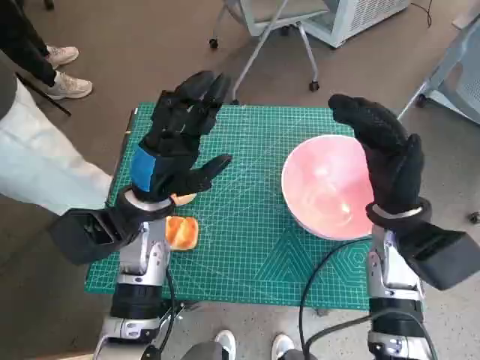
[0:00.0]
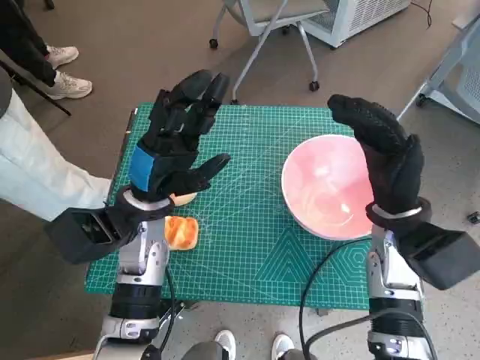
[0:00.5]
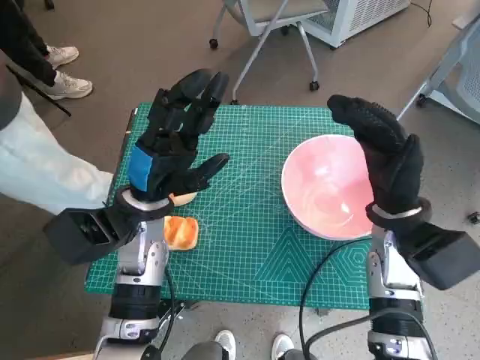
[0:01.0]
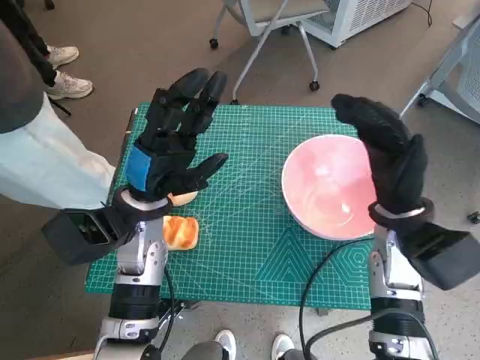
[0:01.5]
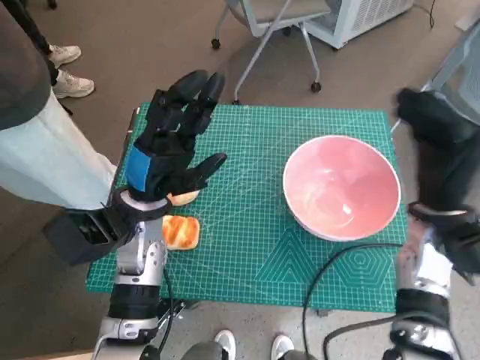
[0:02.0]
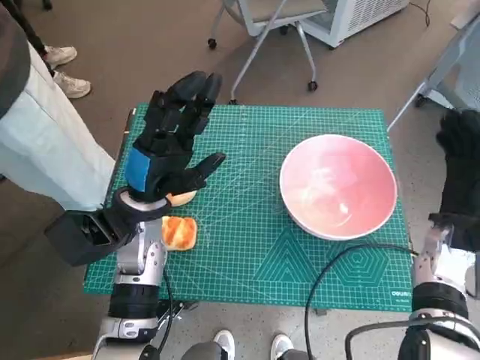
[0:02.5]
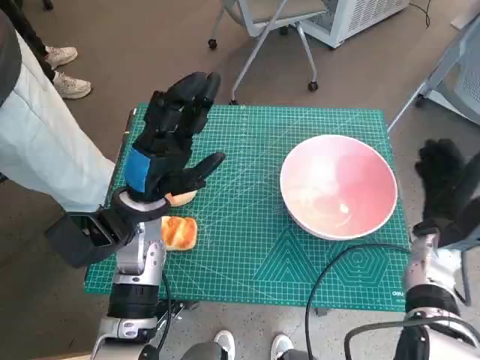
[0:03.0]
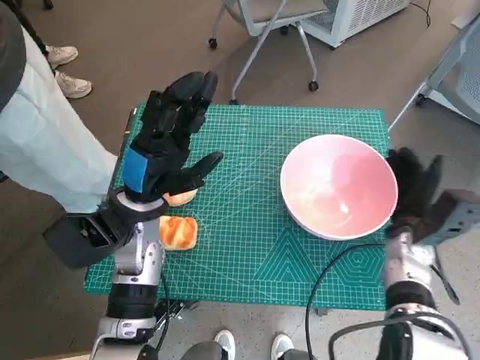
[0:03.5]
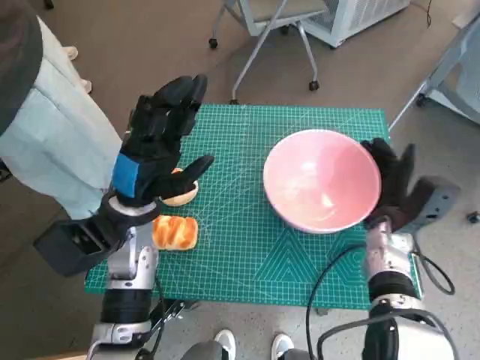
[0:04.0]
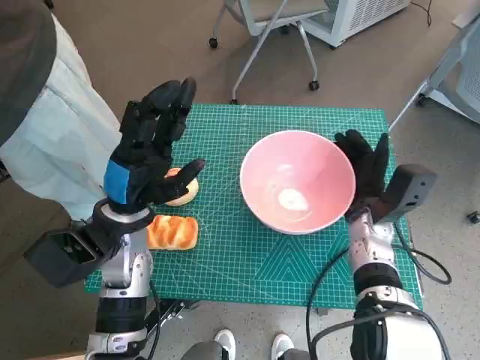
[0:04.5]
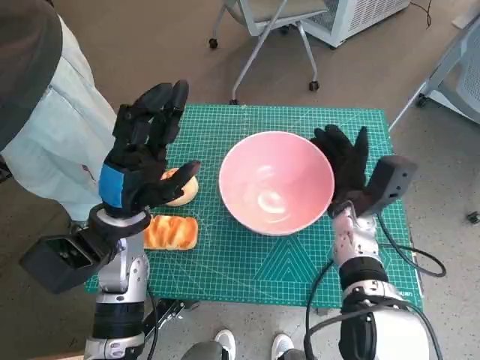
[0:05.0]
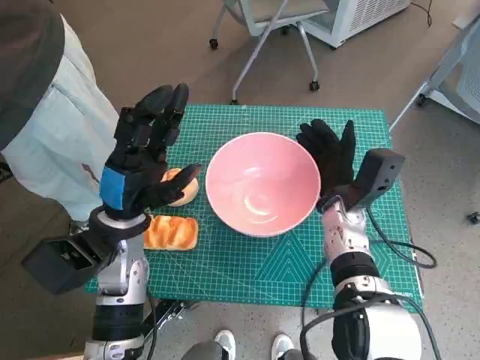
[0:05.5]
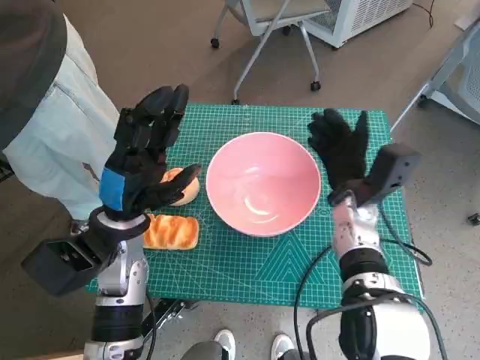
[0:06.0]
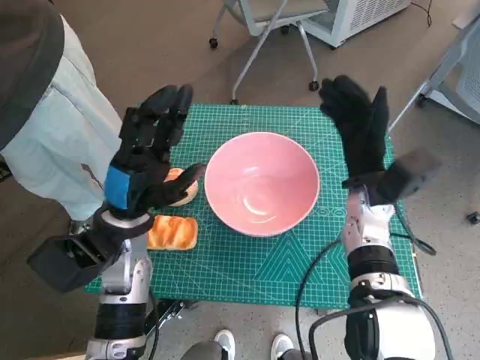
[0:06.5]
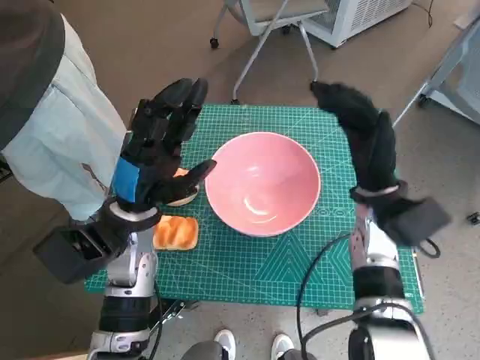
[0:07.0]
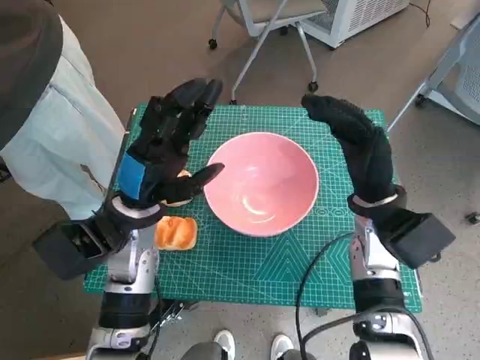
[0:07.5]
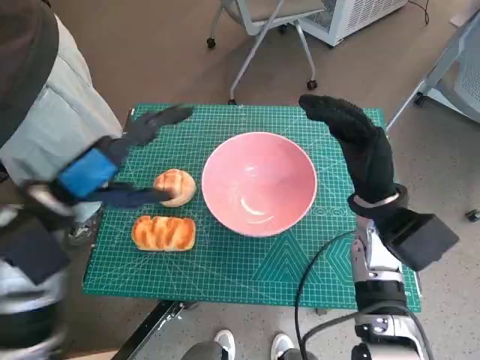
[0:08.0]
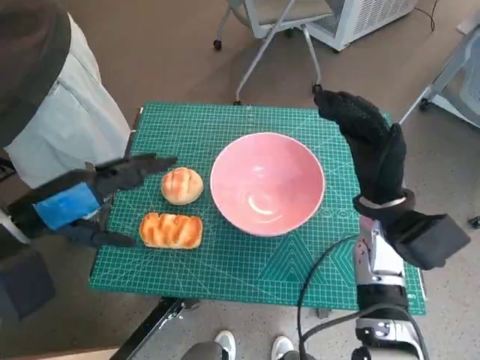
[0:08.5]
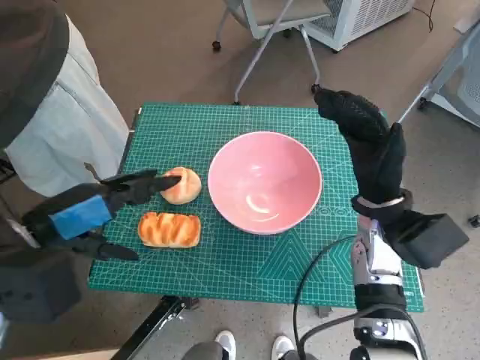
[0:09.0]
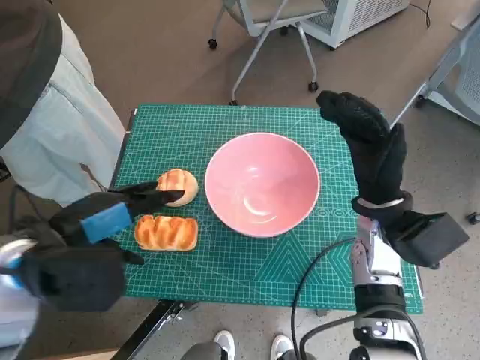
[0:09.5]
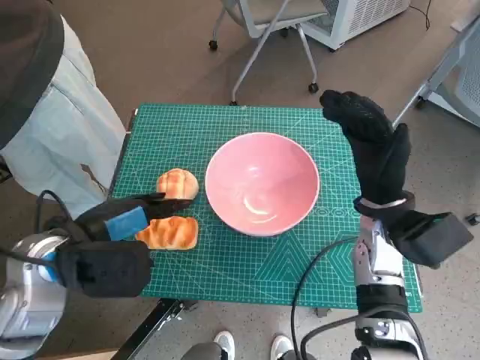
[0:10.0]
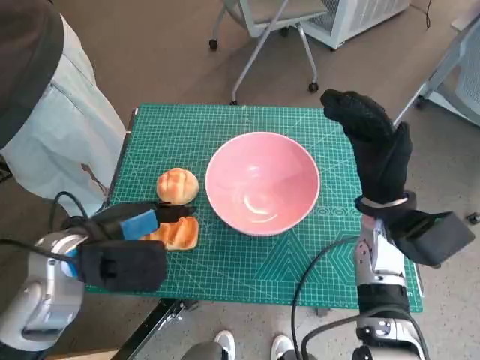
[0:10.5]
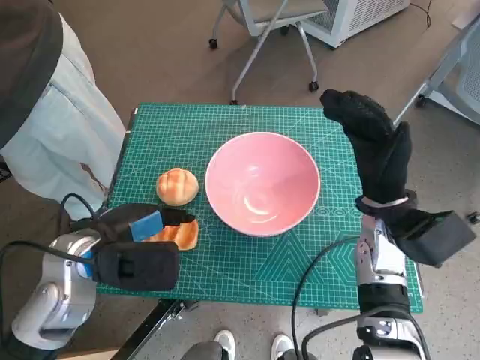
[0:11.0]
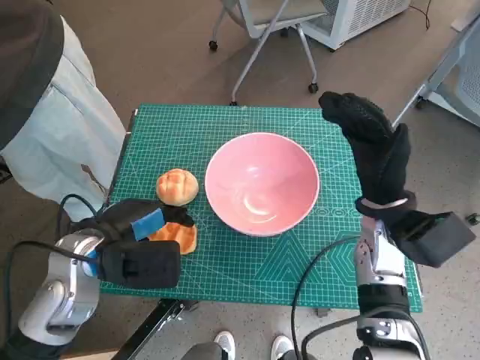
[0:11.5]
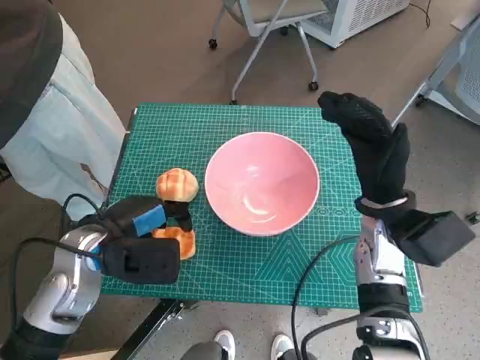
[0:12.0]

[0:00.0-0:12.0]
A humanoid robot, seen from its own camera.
Task of the whole recording: Push the bowl into the center of the table and put the bread into the bowl.
Step, 0:00.0 to 0:07.0: Move the pink bowl to the center of table with right hand.
0:02.0 to 0:04.0: The right hand goes some 10 cm downward.
0:04.0 to 0:06.0: The right hand travels to the left by about 5 cm.
0:06.0 to 0:08.0: The left hand is displaced upward and to the left by roughly 10 cm. The right hand is displaced upward by some 5 cm.
0:10.0 to 0:12.0: The left hand moves some 5 cm.

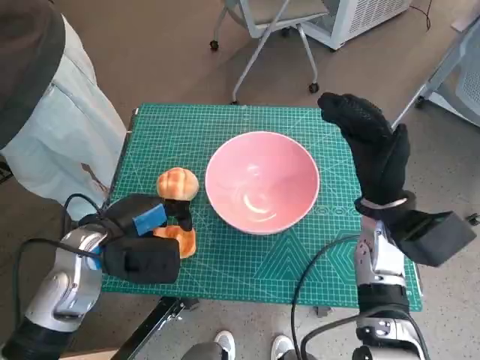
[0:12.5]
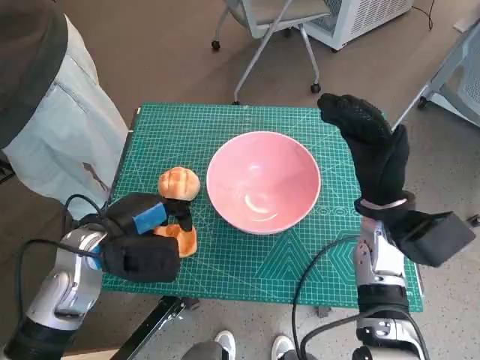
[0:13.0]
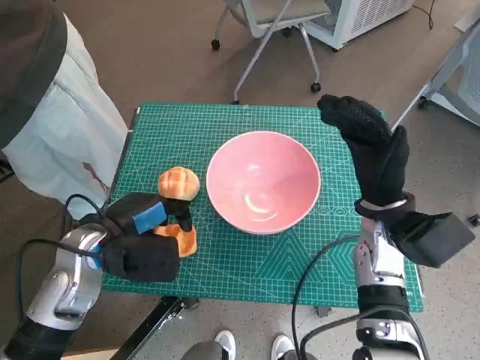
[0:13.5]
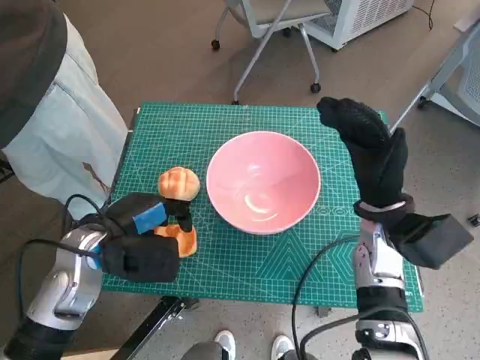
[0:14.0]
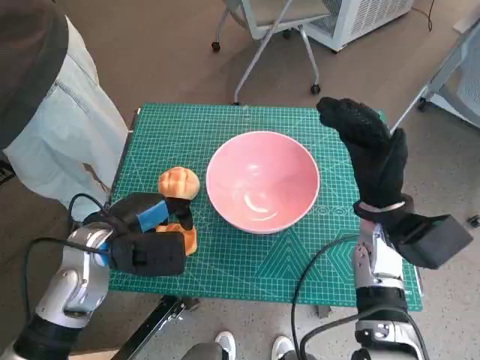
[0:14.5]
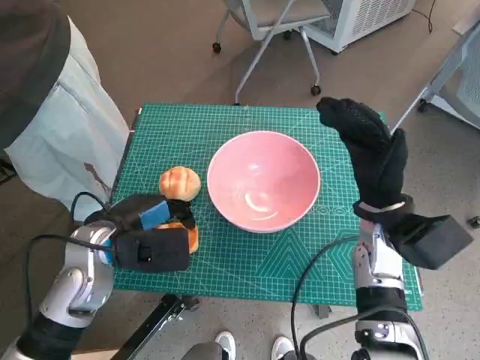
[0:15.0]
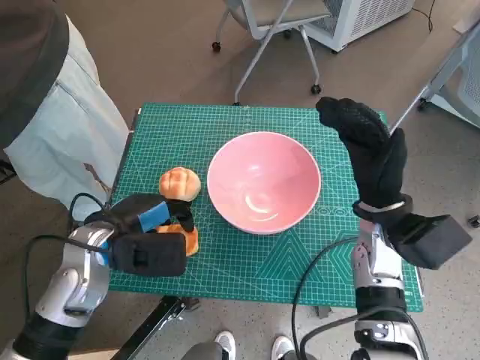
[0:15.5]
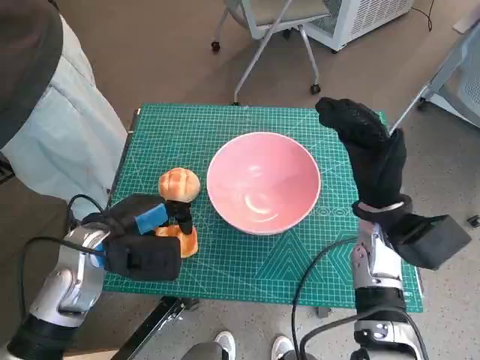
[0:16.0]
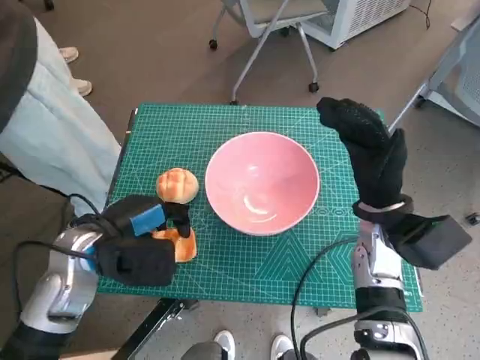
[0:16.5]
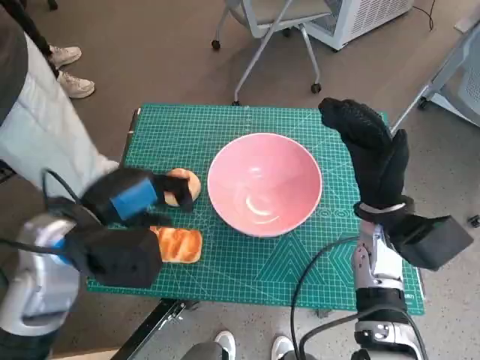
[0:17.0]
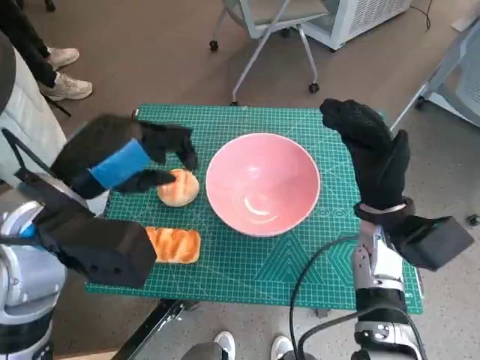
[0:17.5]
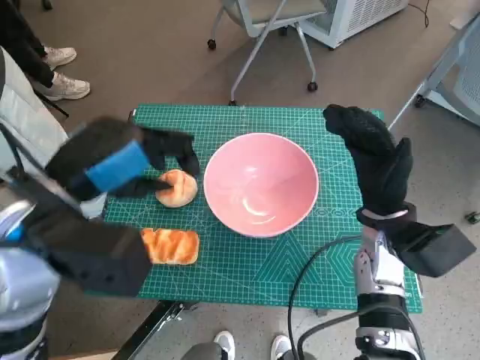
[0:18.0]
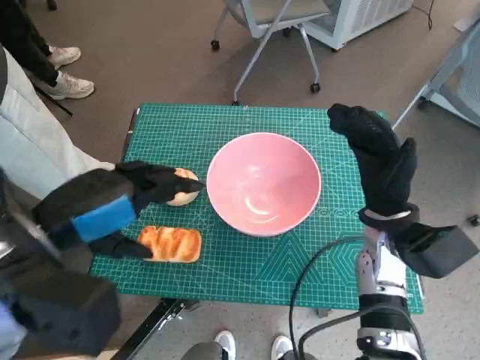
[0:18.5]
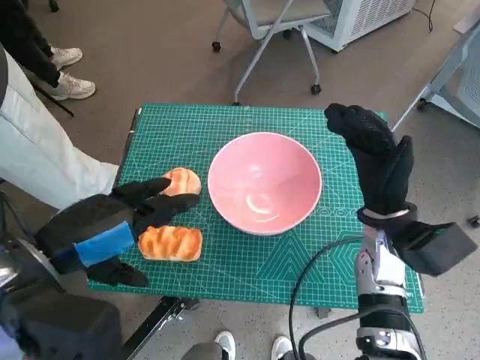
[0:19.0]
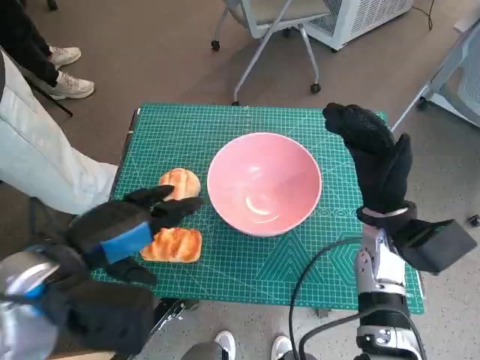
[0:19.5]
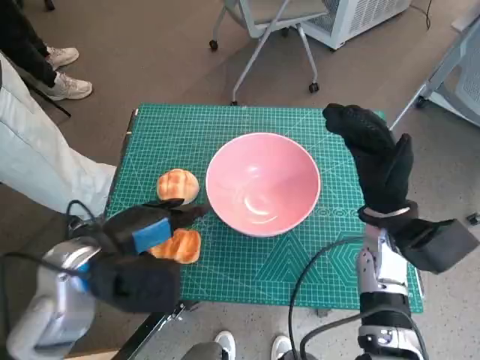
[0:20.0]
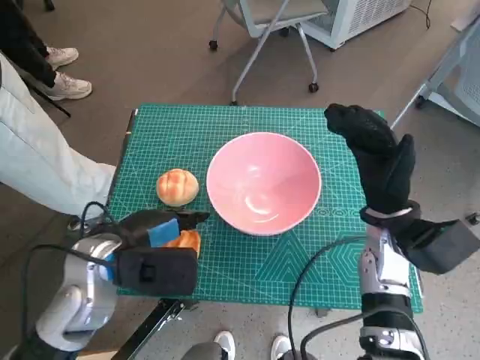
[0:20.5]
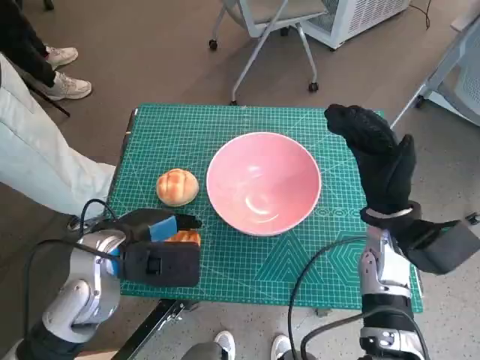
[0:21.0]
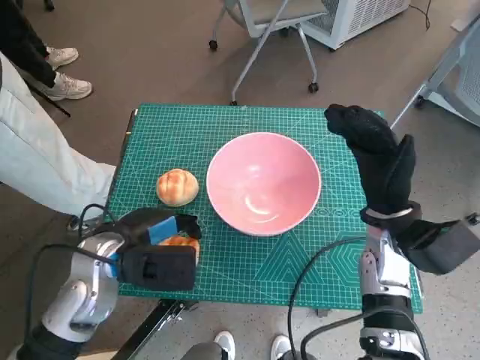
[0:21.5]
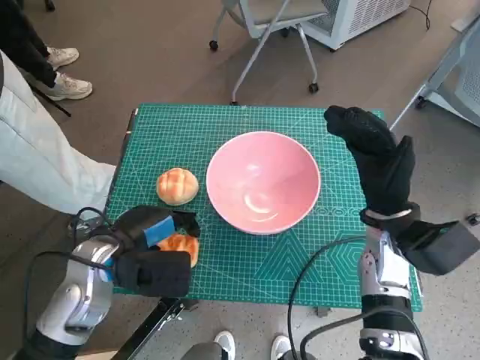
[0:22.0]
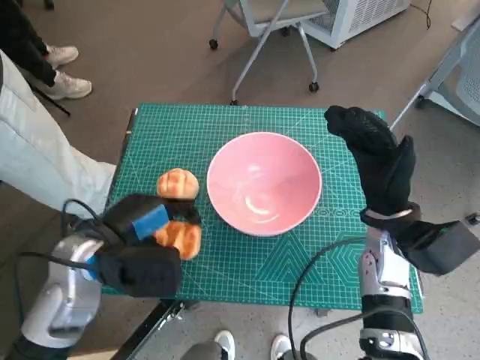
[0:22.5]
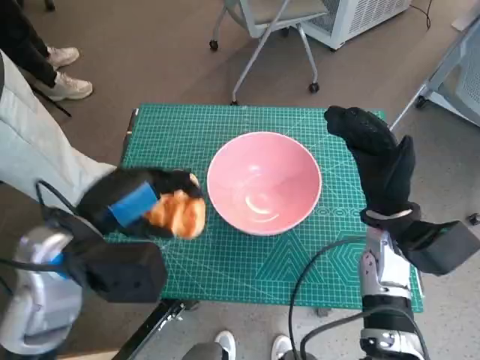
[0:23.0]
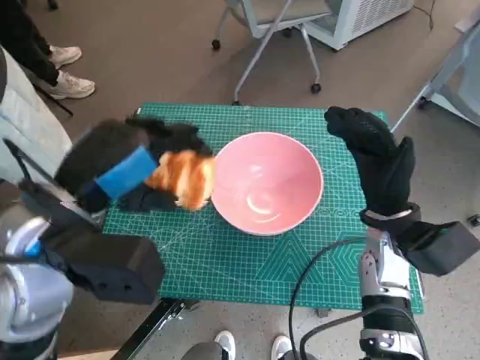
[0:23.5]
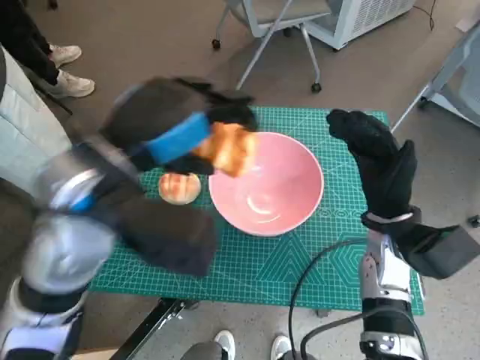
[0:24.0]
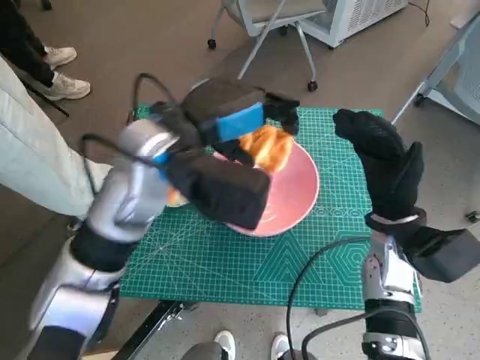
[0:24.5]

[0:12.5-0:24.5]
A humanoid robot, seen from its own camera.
Task of the whole recording: Push the bowl into the center of the table and put the bread into the bowl.
Step, 0:12.5 to 0:22.0: Grasp the long bread with left hand.
0:12.5 to 0:14.5: Neither hand changes place.
0:14.5 to 0:16.5: There are only small adjustments of the hands.
0:16.5 to 0:18.5: The left hand heads upward and backward, covering some 15 cm.
0:18.5 to 0:20.5: The left hand moves downward, about 10 cm.
0:20.5 to 0:22.5: The hands stay close to where they were, moving slightly.
0:22.5 to 0:24.5: The left hand is displaced upward, to the right and forward by about 15 cm.

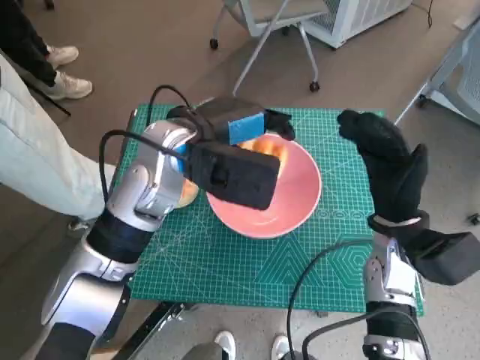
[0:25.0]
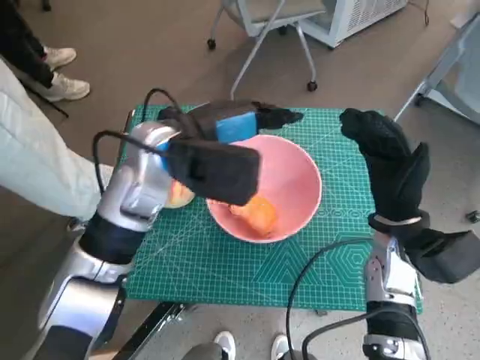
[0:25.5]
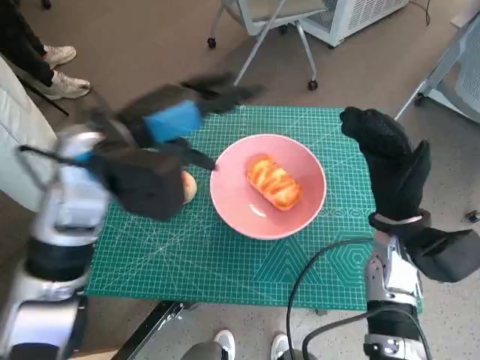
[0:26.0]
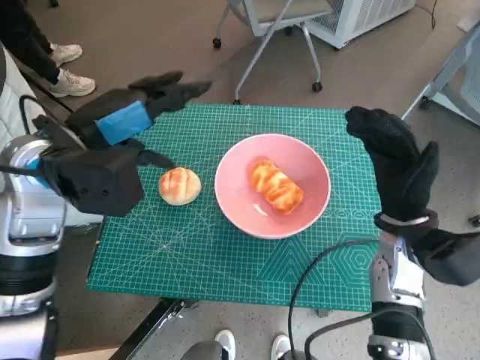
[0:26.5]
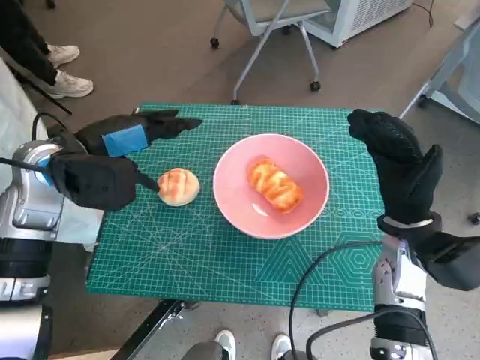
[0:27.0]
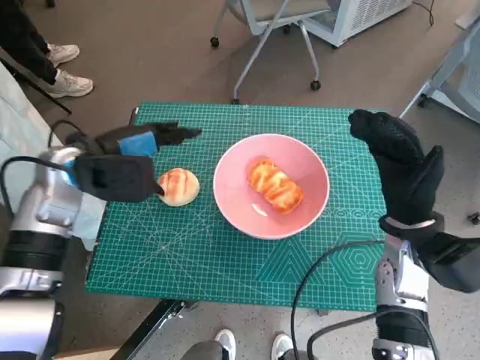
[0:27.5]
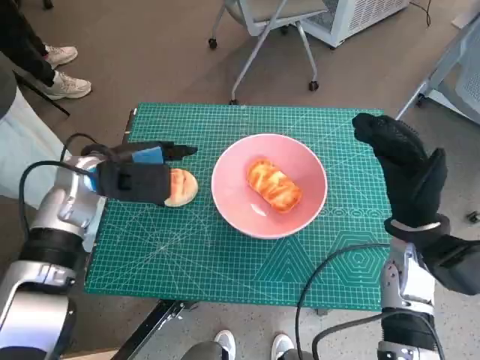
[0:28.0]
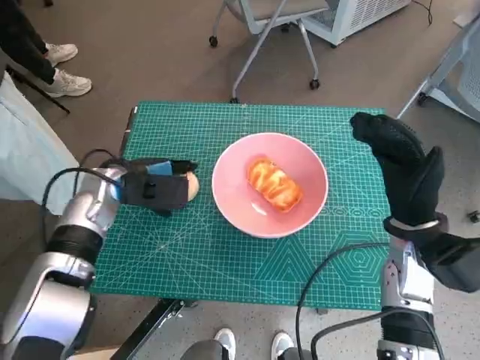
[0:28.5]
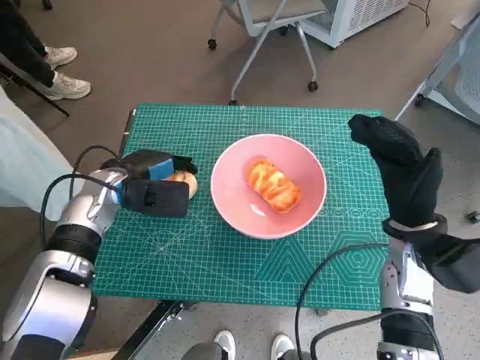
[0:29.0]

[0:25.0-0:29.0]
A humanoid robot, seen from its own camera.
Task of the whole recording: Push the bowl into the center of the table and put the bread into the bowl.
Step, 0:26.0 to 0:29.0: Grasp the round bread with left hand.
0:25.0 to 0:27.0: The left hand is displaced to the left by some 15 cm.
0:27.0 to 0:29.0: The left hand heads downward, covering some 10 cm.
